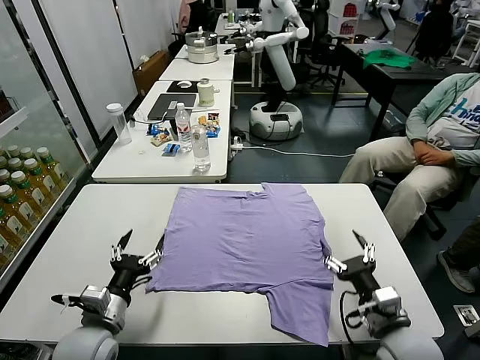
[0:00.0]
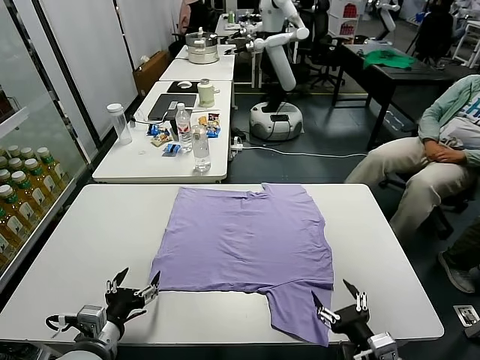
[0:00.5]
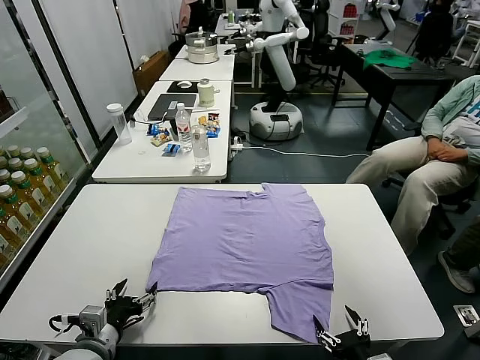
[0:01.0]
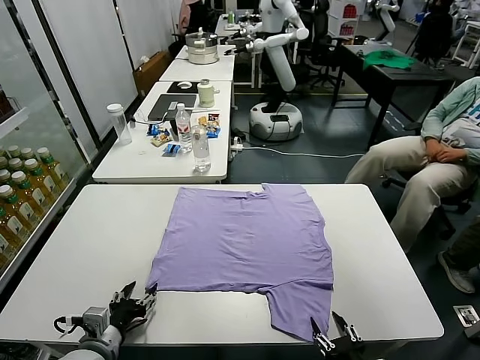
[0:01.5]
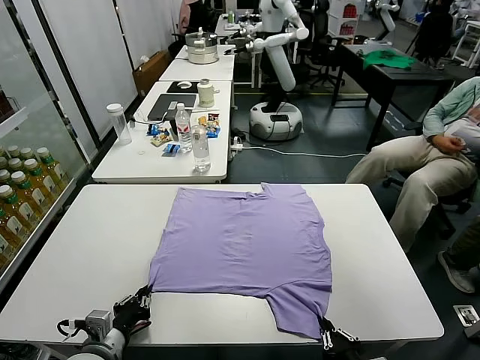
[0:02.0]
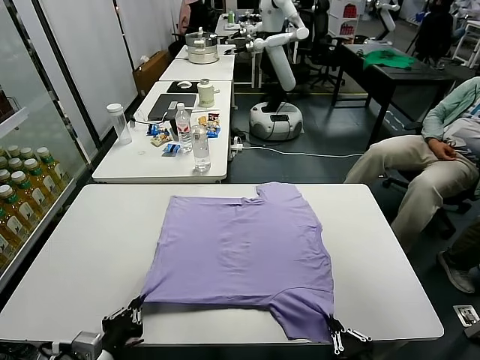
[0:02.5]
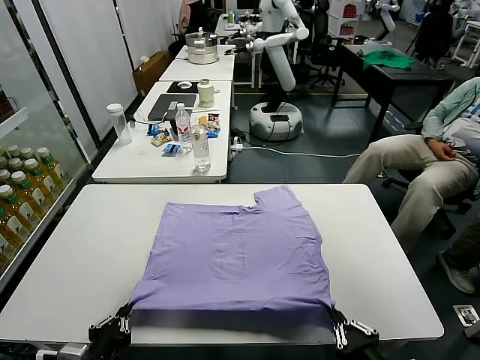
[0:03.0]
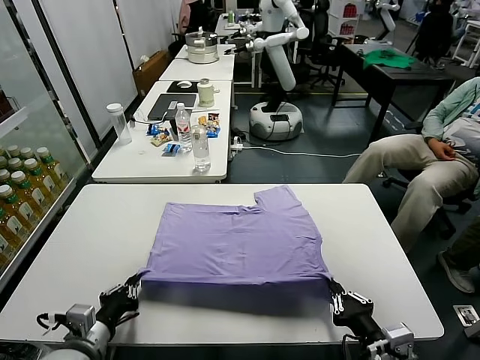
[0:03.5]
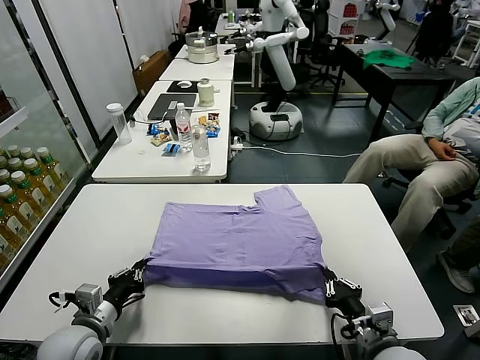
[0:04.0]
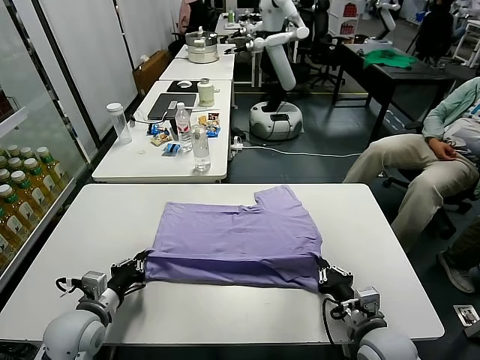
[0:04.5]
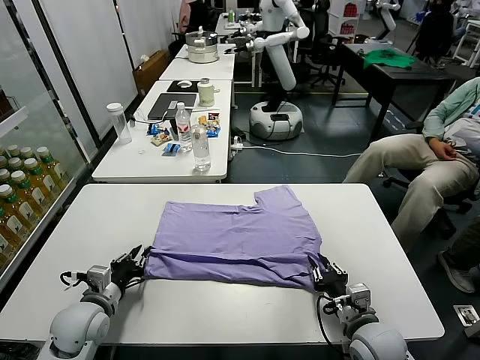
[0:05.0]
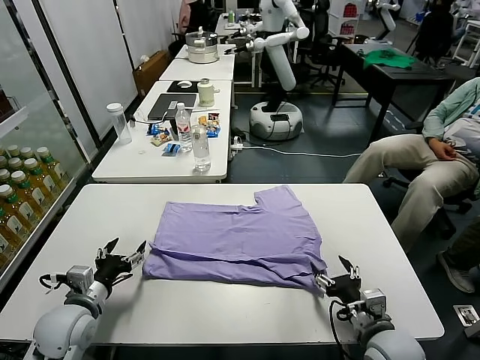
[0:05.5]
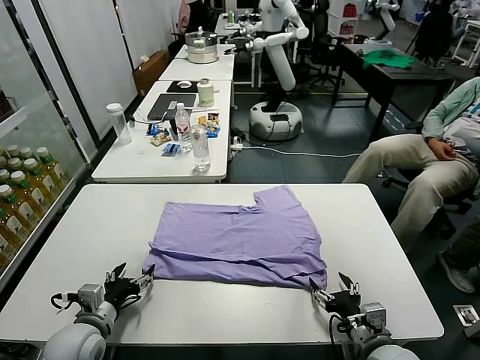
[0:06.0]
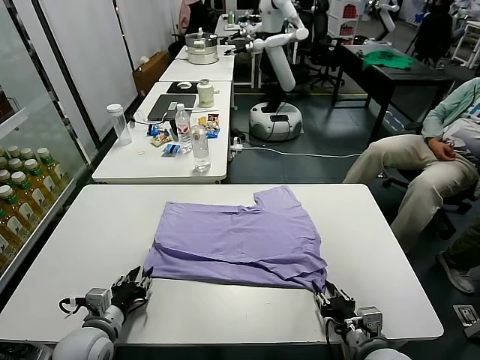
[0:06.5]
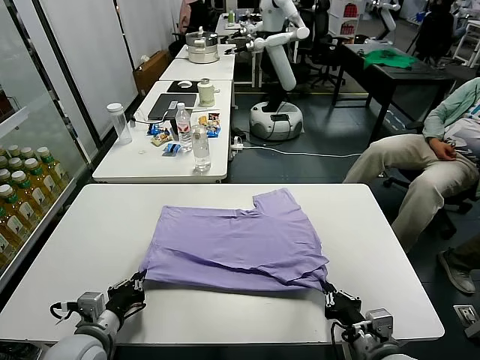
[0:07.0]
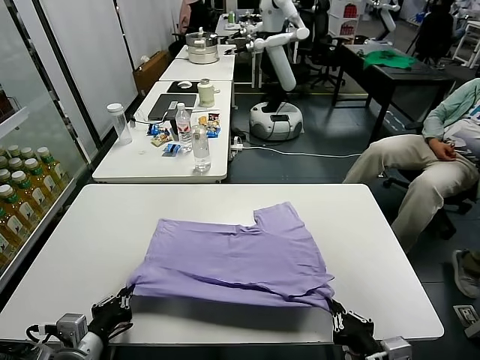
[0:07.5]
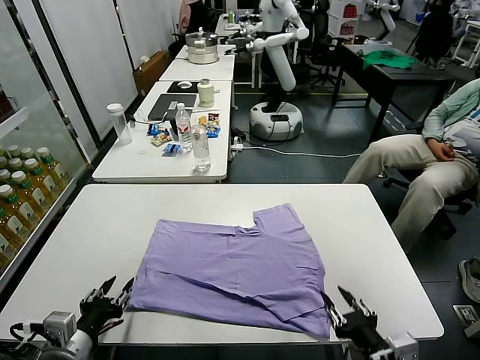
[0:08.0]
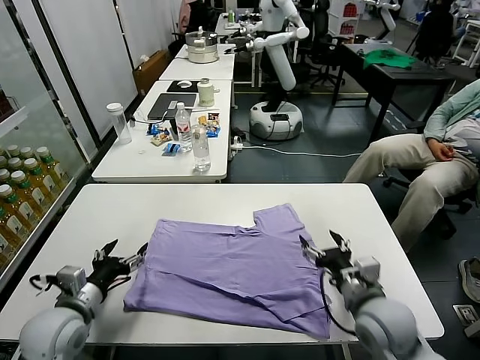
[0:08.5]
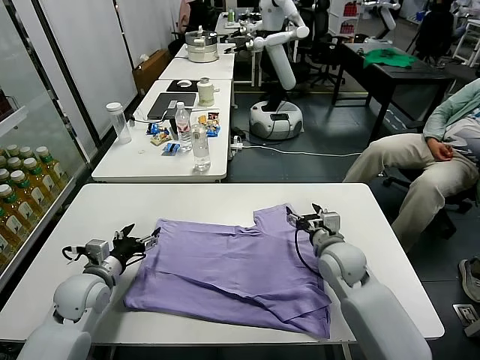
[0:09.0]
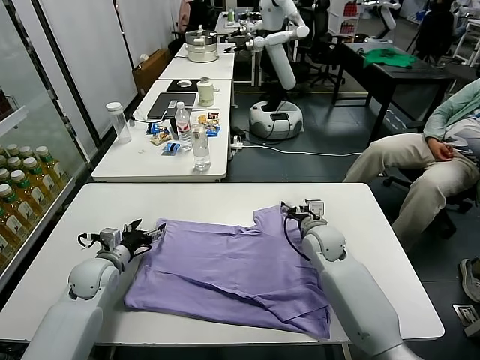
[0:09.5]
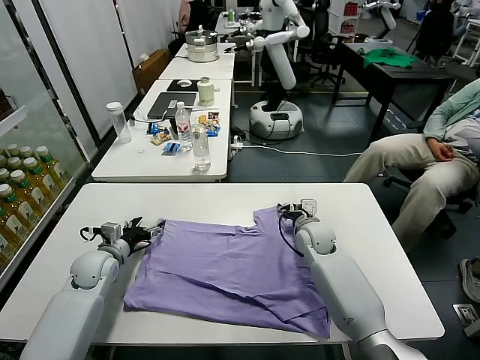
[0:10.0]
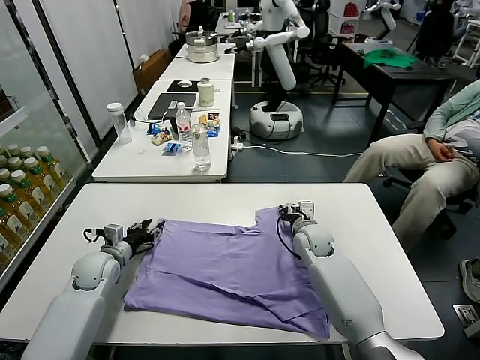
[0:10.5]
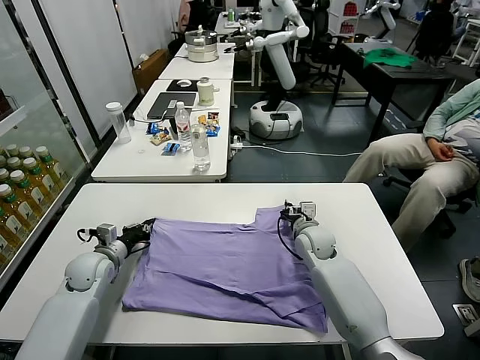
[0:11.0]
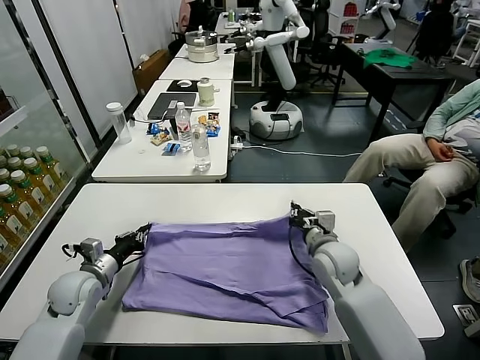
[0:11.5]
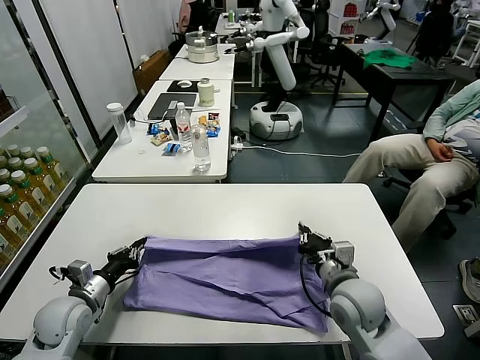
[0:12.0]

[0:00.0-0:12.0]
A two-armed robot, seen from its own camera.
Task of the whole recording: fold and organize the clothes.
Step, 0:00.0 to 0:02.0: use both grippers simultaneously to clamp the lower edge of the clothing fabric.
Step, 0:02.5 to 0:05.0: use both grippers to drag the lower edge of the fabric forward and fold it over the upper edge.
Step, 0:05.5 to 0:07.5: Drag the clothes downward with both gripper.
Step, 0:08.5 to 0:11.0: use both grippers simultaneously to clamp the upper edge of the clothing fabric.
0:02.0 to 0:04.0: The left gripper shifts by about 5 cm, while the right gripper moves forward, some 10 cm.
0:04.0 to 0:06.0: The left gripper opens. The right gripper opens its fingers.
0:06.0 to 0:08.0: The left gripper is displaced backward and upward by about 10 cm, and closes its fingers. Meanwhile the right gripper travels upward and backward by some 10 cm, and closes, then reopens.
0:08.0 to 0:10.0: Both grippers travel together forward, roughly 30 cm. The left gripper opens up.
0:10.0 to 0:12.0: The left gripper shifts approximately 15 cm backward, and closes. Meanwhile the right gripper shifts roughly 20 cm backward, and closes up.

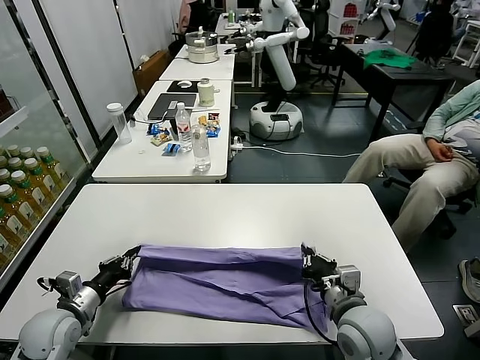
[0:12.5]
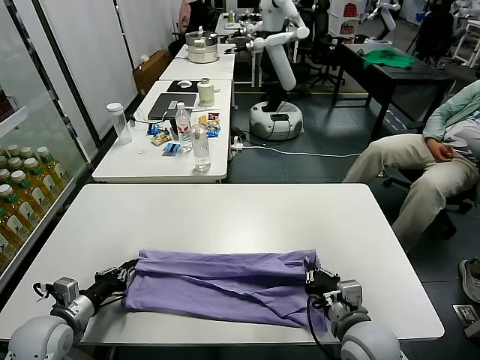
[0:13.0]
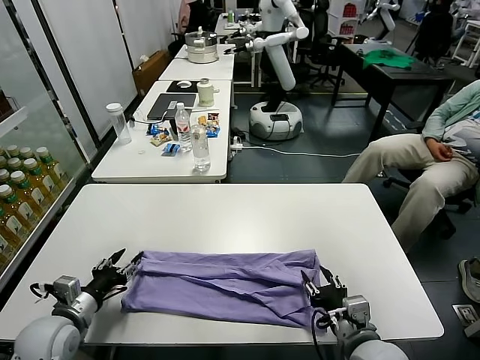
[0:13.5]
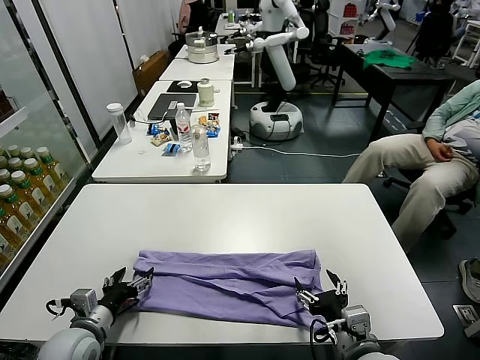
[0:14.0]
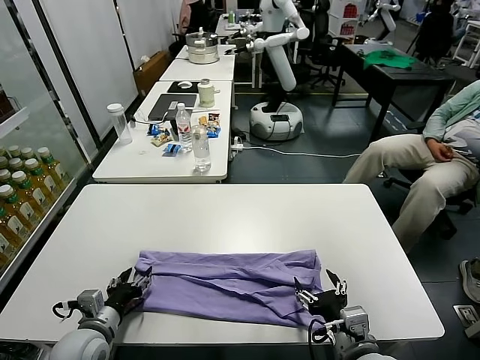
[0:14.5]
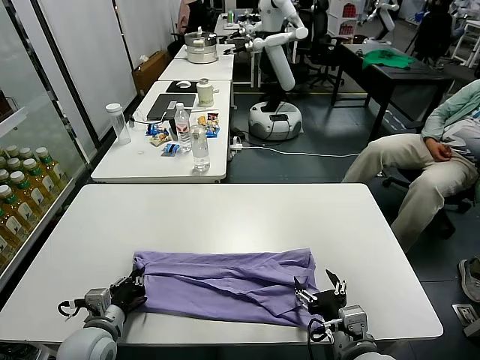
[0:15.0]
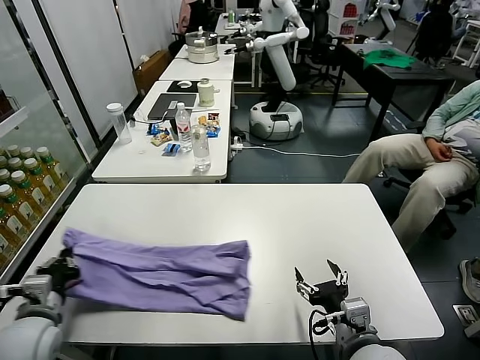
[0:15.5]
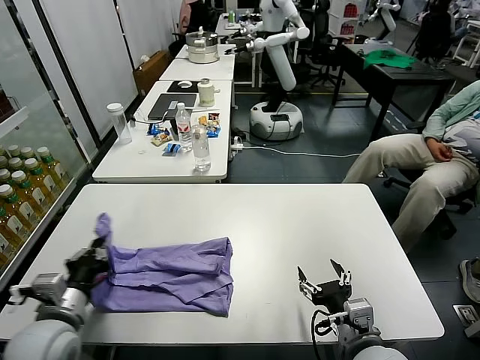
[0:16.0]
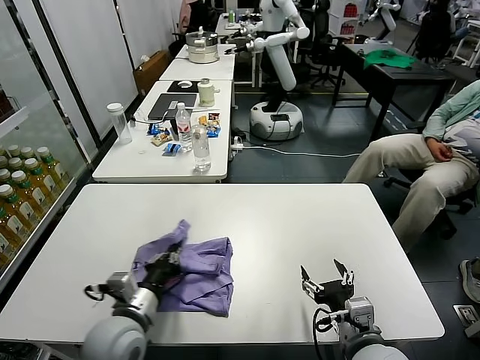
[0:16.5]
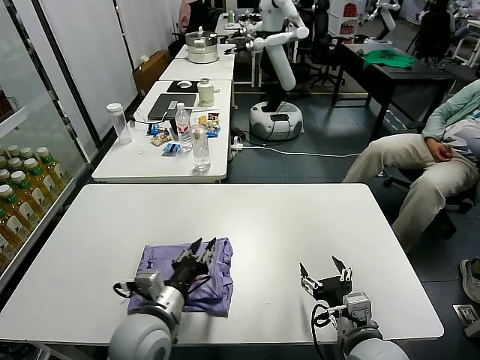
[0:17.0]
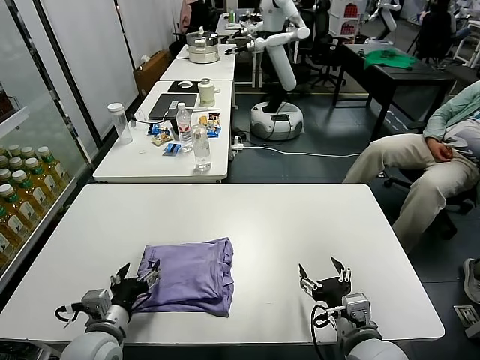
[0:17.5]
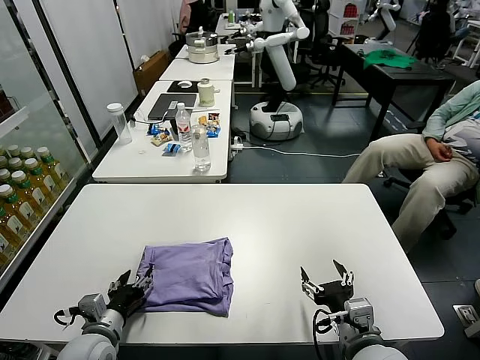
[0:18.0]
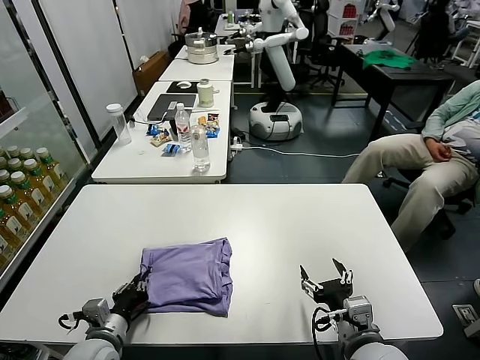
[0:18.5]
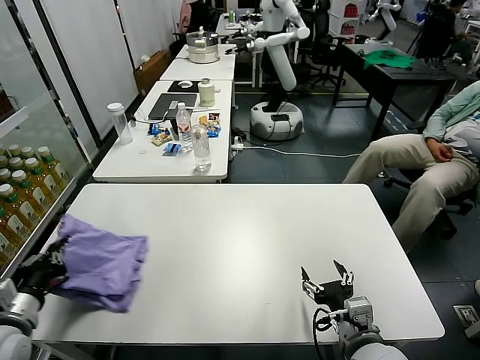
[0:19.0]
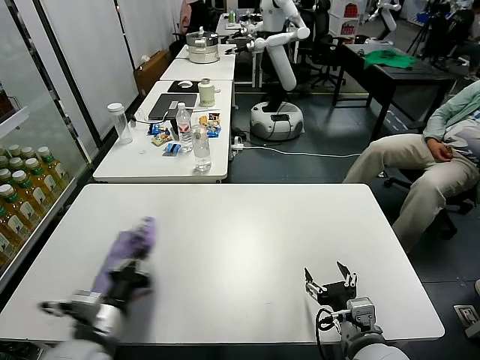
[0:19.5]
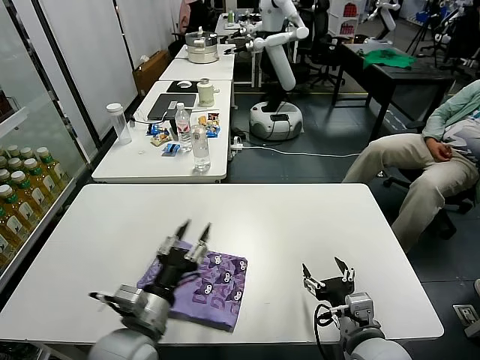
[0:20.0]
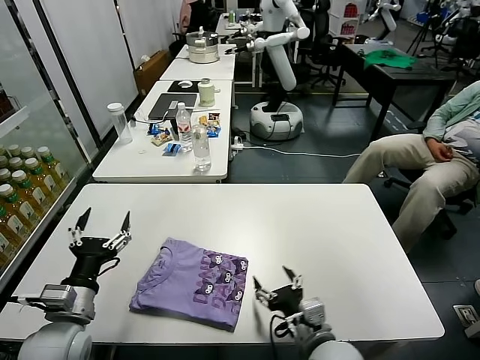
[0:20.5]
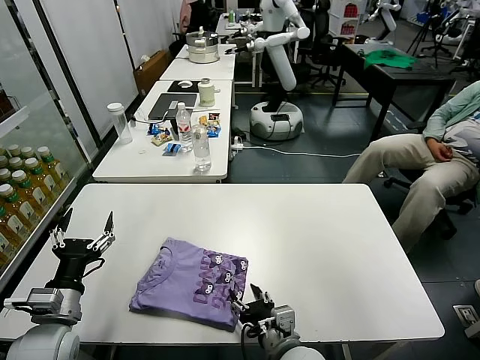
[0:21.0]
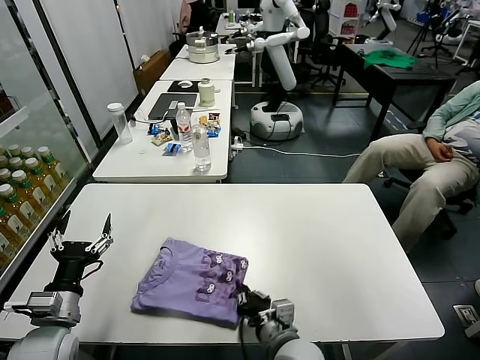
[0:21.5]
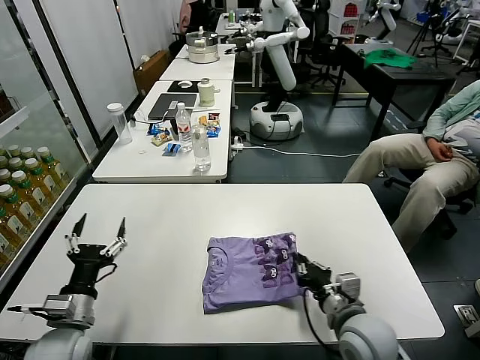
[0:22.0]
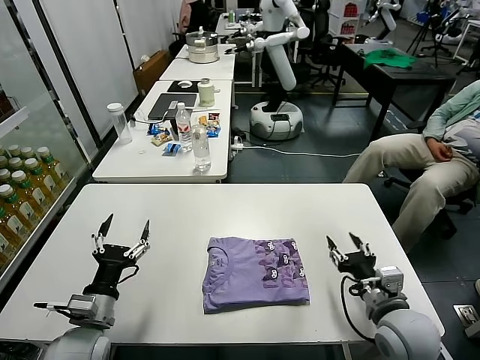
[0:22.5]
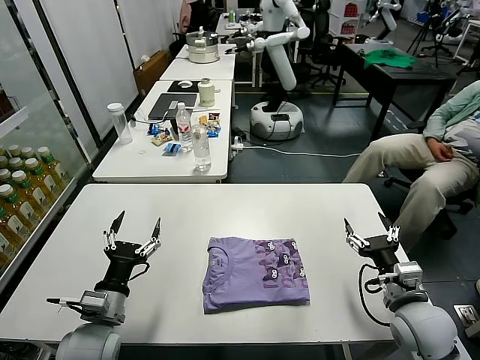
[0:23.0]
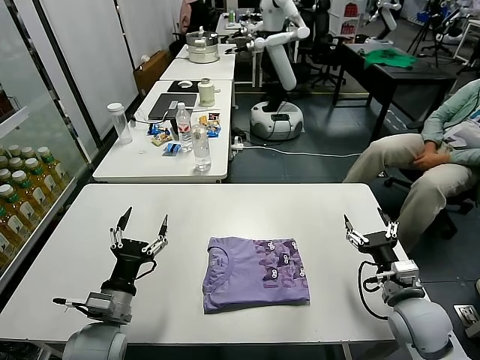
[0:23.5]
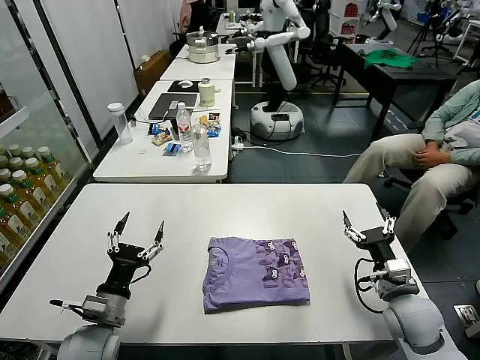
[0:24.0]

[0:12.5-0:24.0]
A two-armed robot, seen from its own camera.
Task of the whole recording: fold and organize the clothes.
Step, 0:14.0 to 0:15.0: use the left gripper to clamp the left edge of the fabric.
Step, 0:15.5 to 0:17.0: use the left gripper to drag the left edge of the fabric to the left and folds it over the right edge.
Step, 0:17.5 to 0:20.0: Flip the folded clothes over with left gripper.
Step, 0:20.5 to 0:22.0: Drag the clothes to the center of the table.
0:12.5 to 0:14.5: The left gripper heads to the right, covering roughly 5 cm, and opens its fingers, while the right gripper is displaced backward by some 10 cm, and opens its fingers.
0:14.5 to 0:16.5: The left gripper travels to the right and upward by some 10 cm, and closes.
0:16.5 to 0:18.5: The left gripper shifts approximately 10 cm downward and to the left, and opens, then closes once more.
0:18.5 to 0:20.0: The left gripper shifts about 15 cm to the right and upward.
0:20.0 to 0:22.0: The right gripper travels to the left and back again, roughly 15 cm each way, and closes, while the left gripper travels to the left by roughly 15 cm, and opens its fingers.
0:22.0 to 0:24.0: The right gripper goes some 10 cm to the right, and opens; the left gripper shifts by about 5 cm.

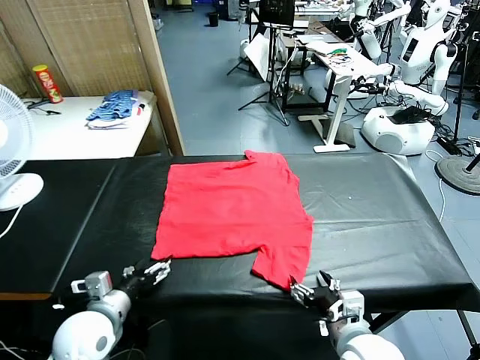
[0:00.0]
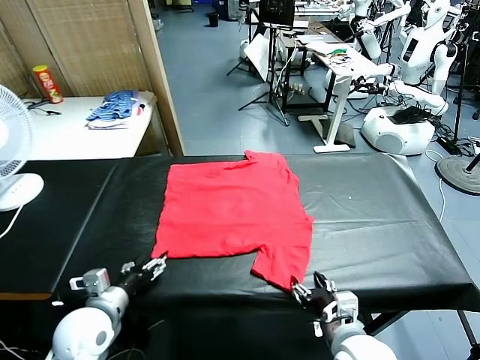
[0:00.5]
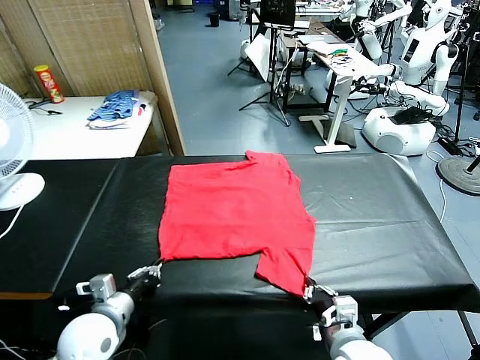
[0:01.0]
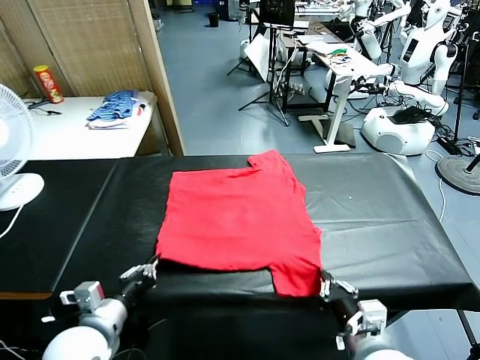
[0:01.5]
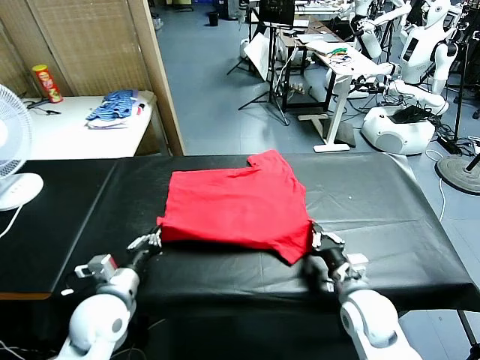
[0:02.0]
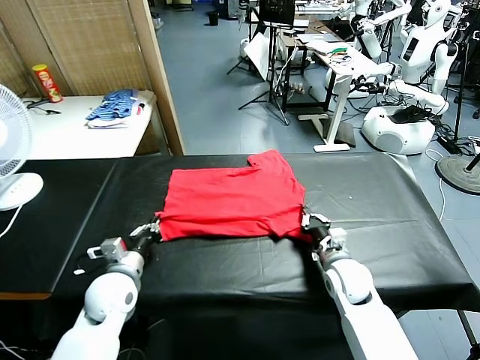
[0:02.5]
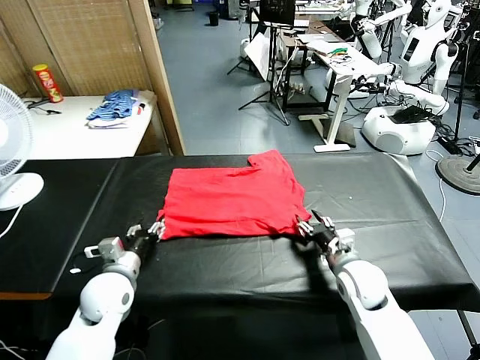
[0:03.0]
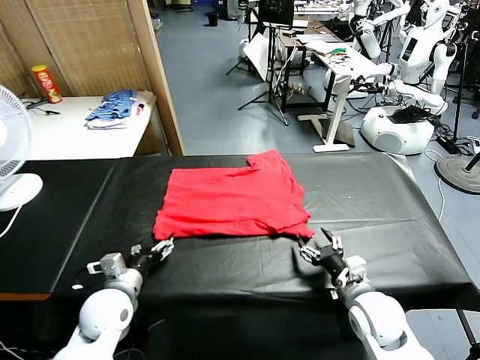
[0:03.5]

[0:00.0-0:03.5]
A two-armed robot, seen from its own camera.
Task of the whole recording: fold and organize the clothes.
Step, 0:00.0 to 0:00.5: use both grippers simultaneously to clamp the lower edge of the clothing fabric.
Step, 0:01.0 to 0:02.5: use both grippers to drag the lower edge of the fabric forward and fold it over the upper edge.
0:02.0 to 0:03.5: The left gripper opens. The right gripper moves backward, about 5 cm, and opens its fingers.
